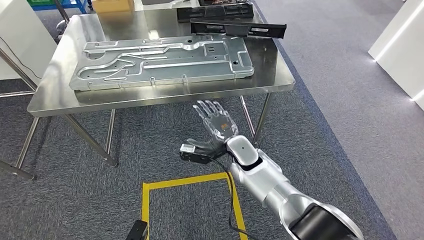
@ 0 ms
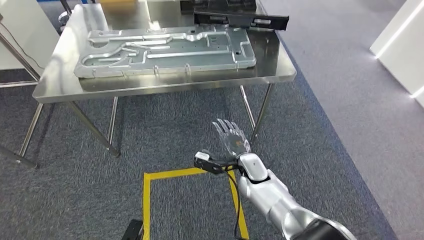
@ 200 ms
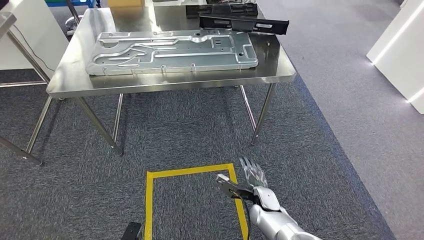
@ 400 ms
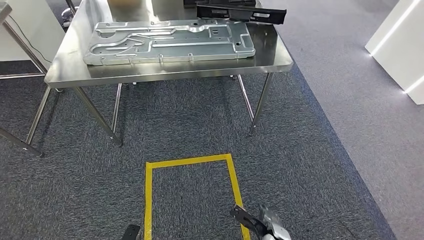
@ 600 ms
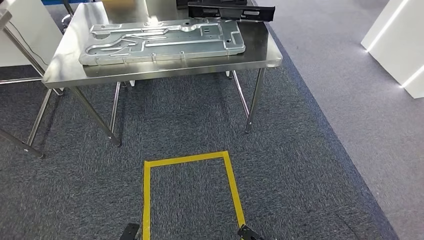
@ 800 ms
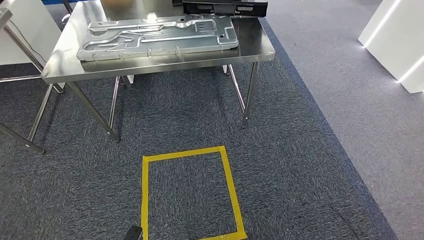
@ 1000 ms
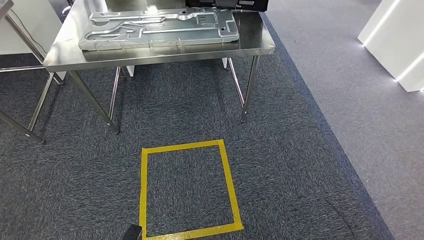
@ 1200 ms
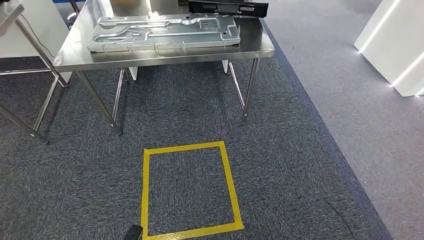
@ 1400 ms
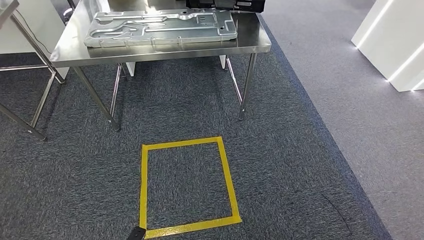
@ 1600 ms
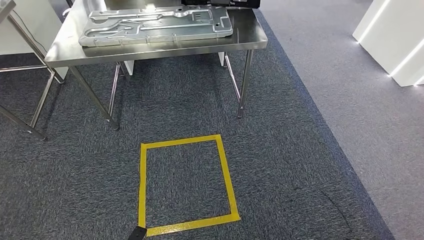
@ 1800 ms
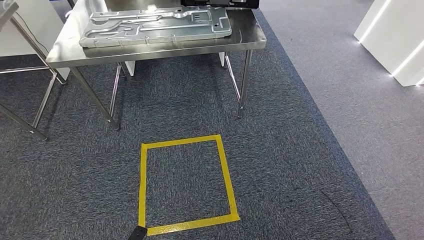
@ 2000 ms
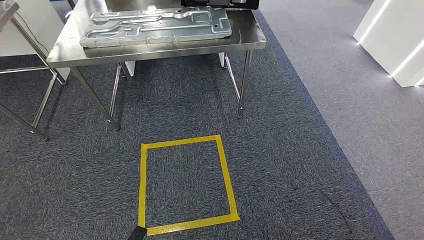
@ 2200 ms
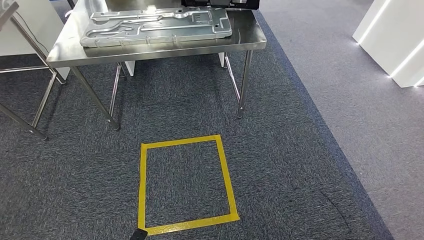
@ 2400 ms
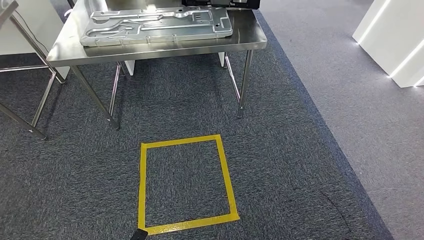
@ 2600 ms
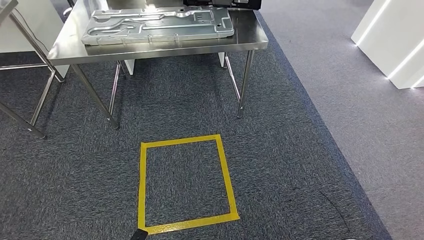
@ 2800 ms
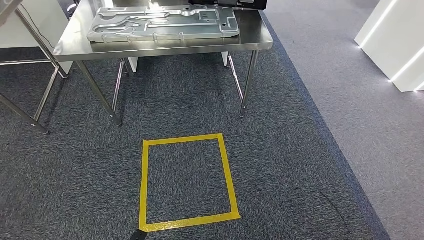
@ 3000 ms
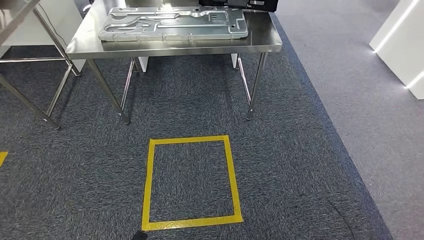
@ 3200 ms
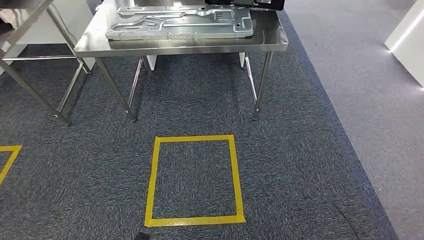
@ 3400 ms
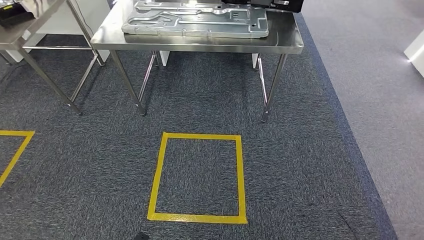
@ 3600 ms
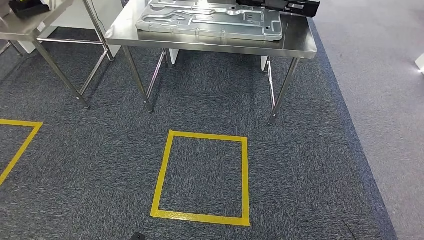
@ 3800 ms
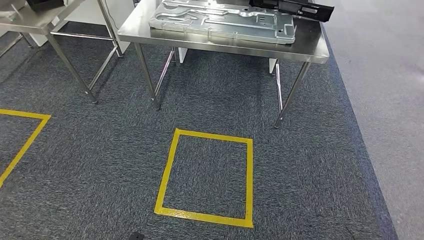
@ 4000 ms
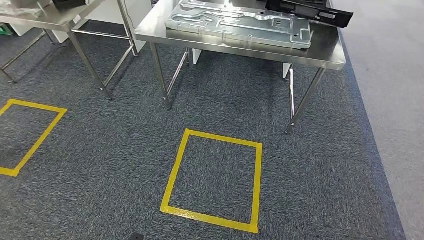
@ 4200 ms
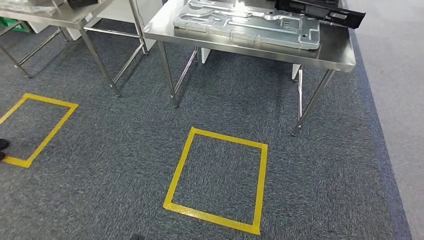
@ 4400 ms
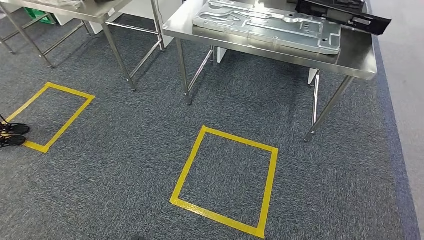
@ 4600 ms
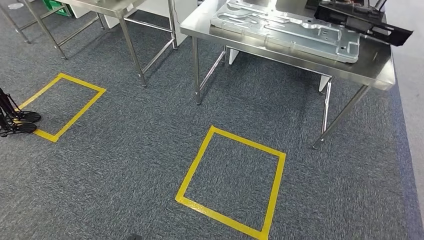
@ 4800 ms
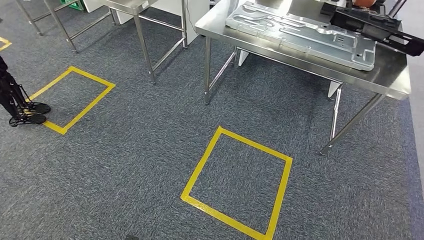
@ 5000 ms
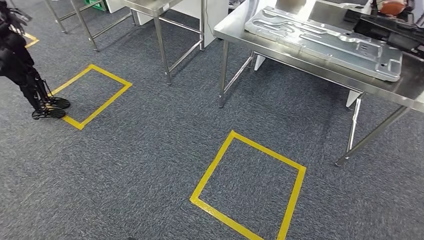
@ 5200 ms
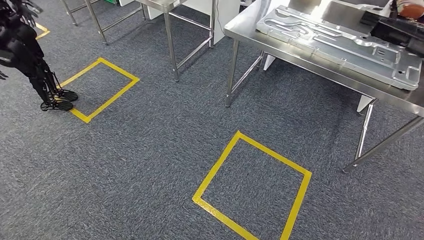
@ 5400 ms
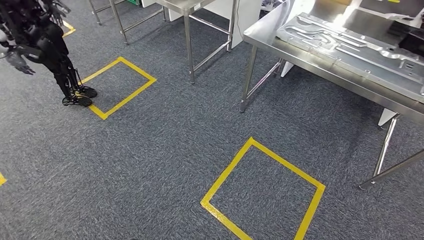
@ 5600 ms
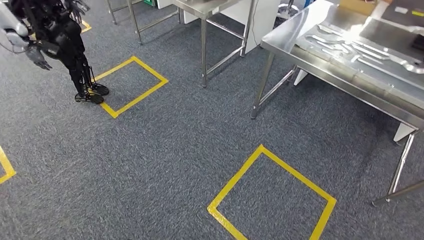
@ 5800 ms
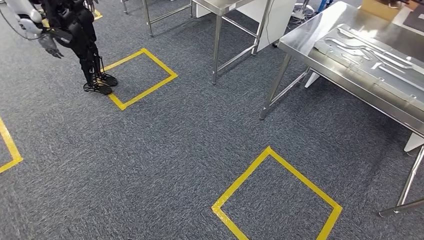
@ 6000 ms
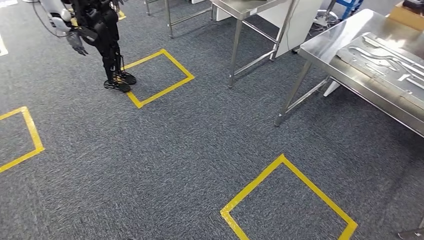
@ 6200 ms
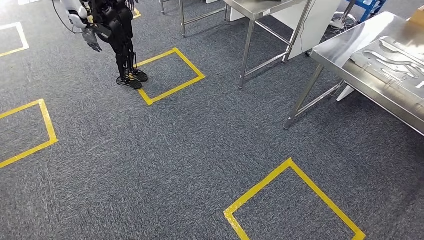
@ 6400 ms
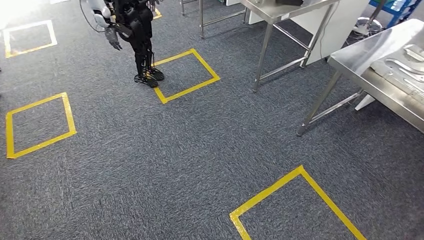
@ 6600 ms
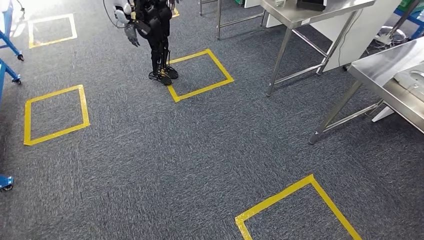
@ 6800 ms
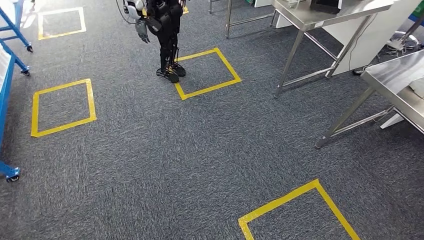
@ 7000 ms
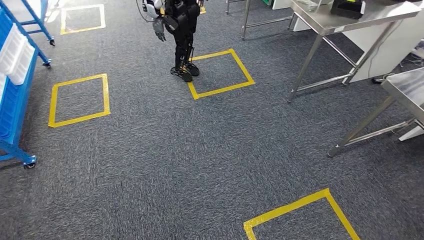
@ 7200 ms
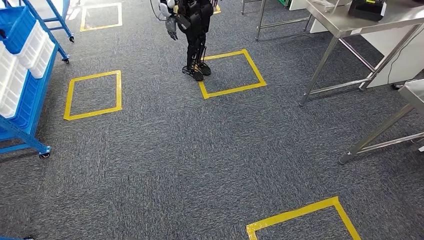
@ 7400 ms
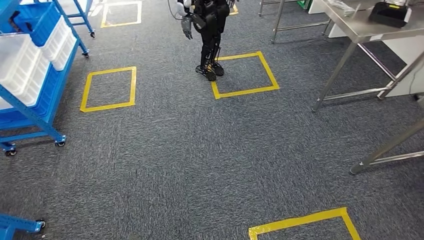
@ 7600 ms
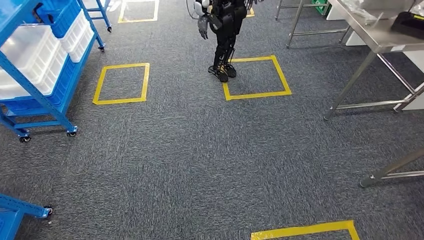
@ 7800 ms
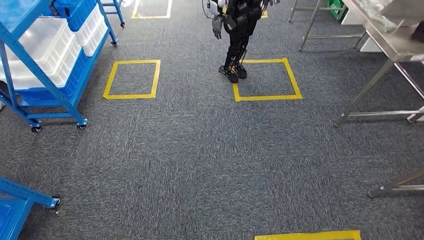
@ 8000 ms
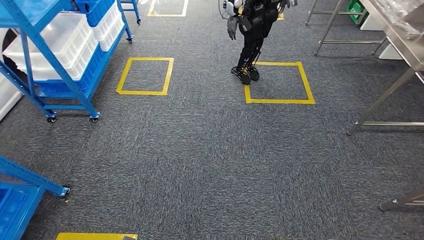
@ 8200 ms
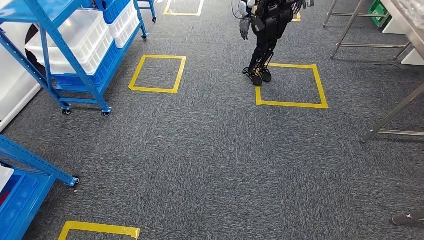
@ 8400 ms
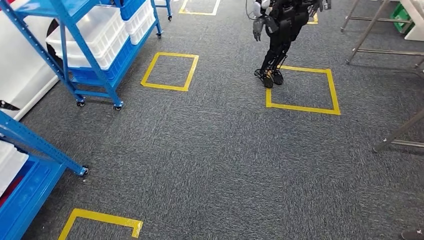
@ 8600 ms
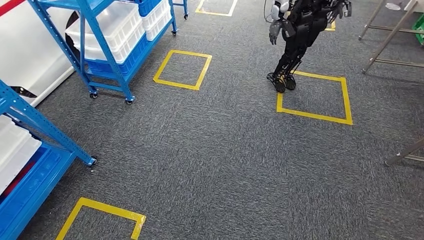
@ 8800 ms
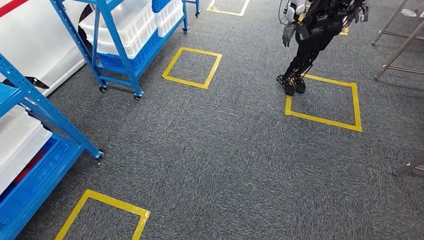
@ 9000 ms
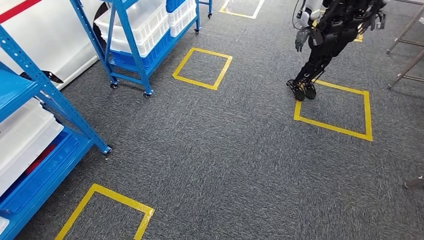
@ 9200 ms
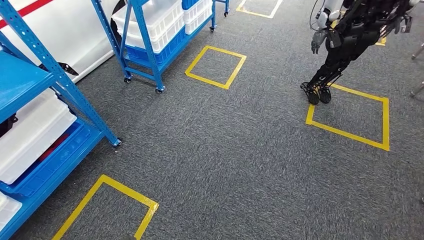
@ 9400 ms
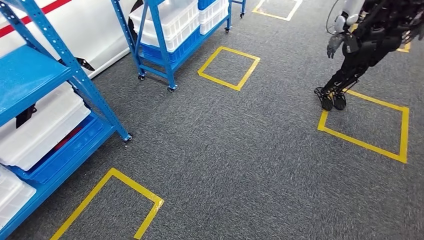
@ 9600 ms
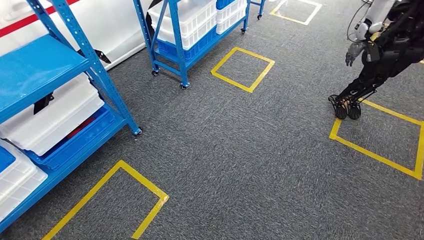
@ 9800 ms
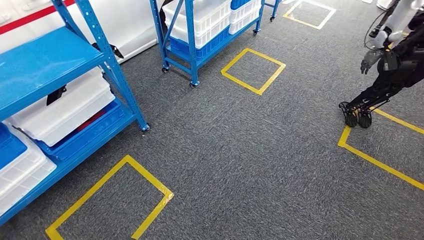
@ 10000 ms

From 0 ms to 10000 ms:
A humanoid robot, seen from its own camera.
From 1400 ms to 2800 ms: The hands make only small movements.

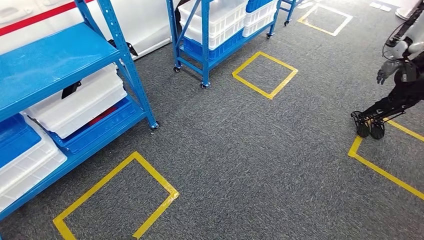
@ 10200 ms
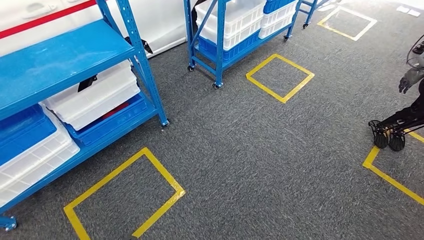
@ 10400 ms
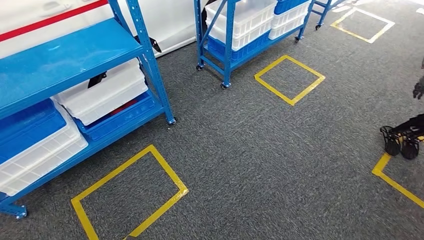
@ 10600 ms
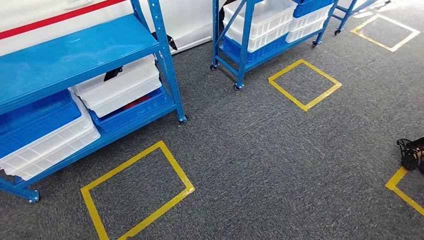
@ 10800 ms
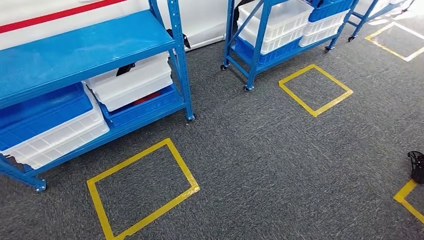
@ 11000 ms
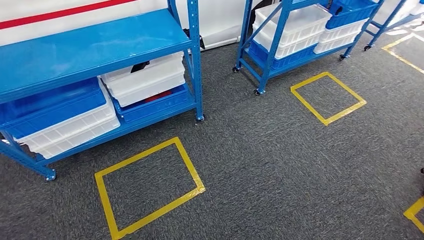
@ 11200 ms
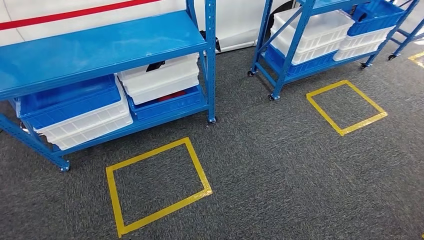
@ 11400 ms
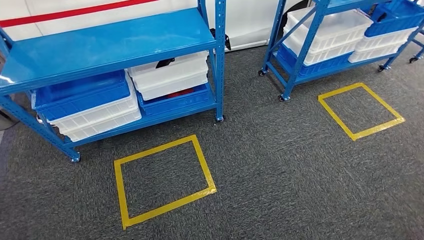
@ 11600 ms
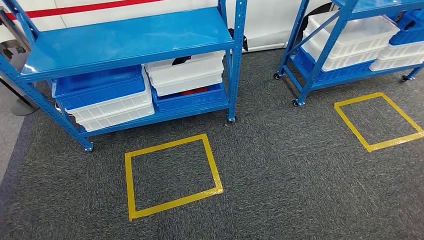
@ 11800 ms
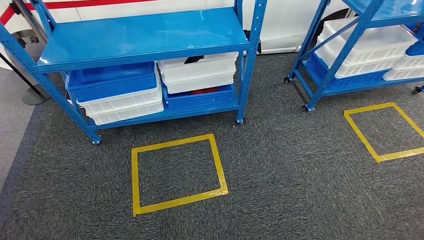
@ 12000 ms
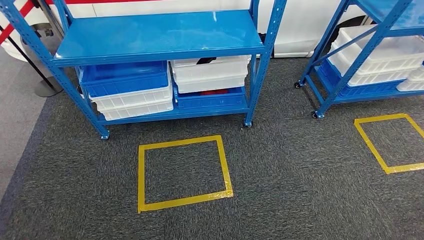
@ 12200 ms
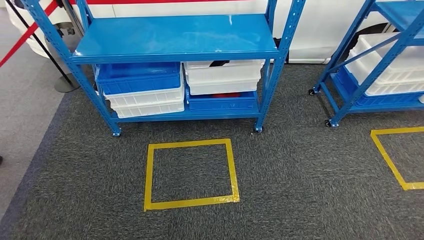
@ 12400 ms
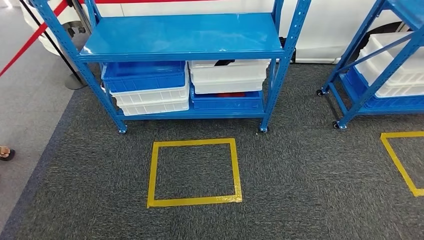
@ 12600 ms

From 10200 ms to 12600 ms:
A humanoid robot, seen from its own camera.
Step, from 10200 ms to 12400 ms: Return to the initial position at the shelf.
